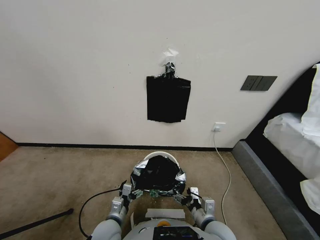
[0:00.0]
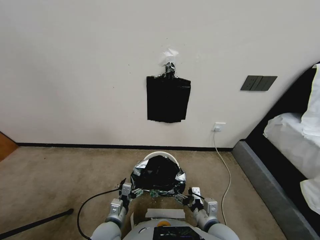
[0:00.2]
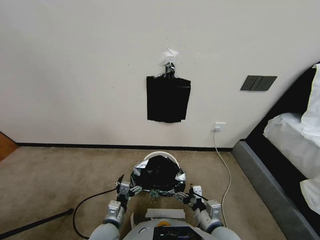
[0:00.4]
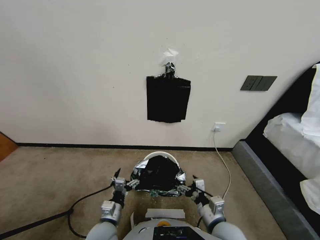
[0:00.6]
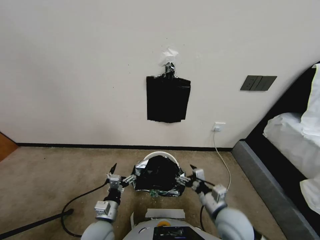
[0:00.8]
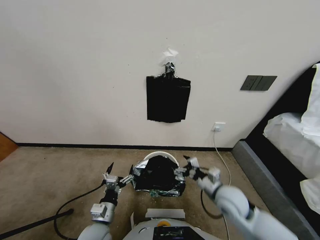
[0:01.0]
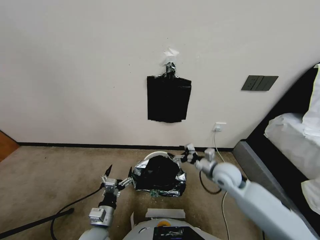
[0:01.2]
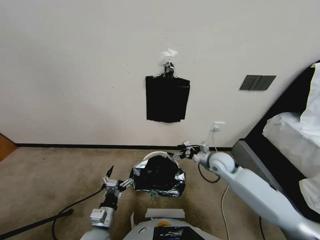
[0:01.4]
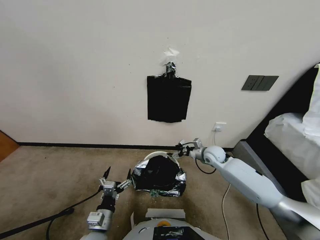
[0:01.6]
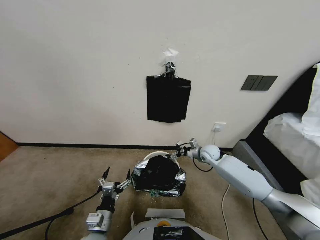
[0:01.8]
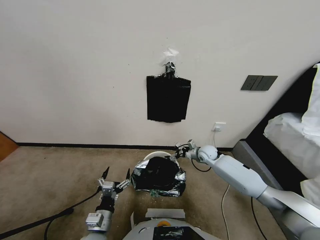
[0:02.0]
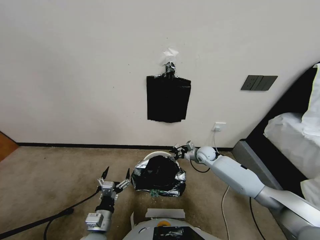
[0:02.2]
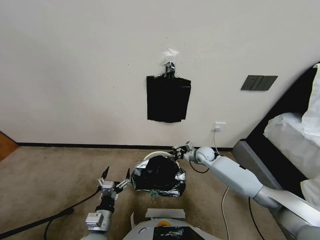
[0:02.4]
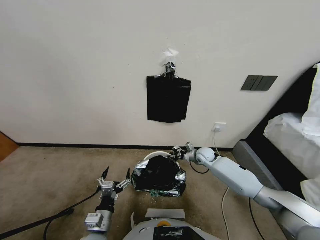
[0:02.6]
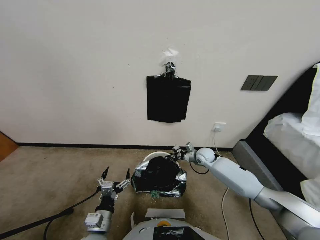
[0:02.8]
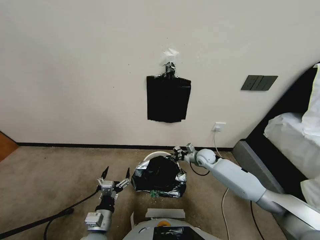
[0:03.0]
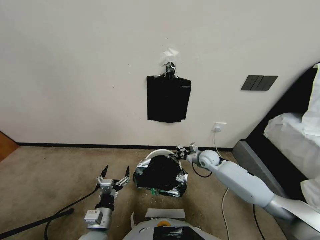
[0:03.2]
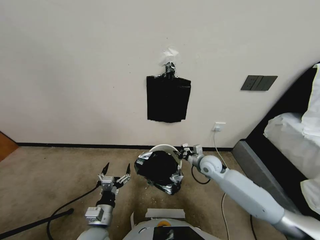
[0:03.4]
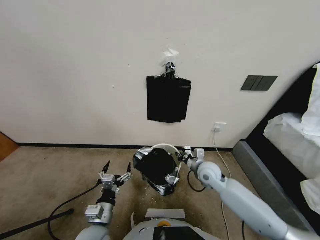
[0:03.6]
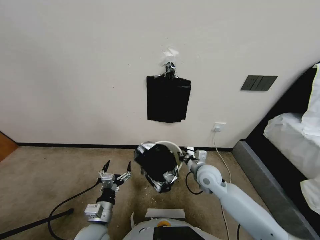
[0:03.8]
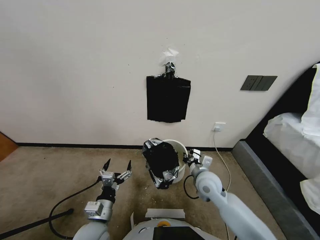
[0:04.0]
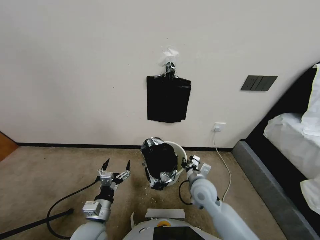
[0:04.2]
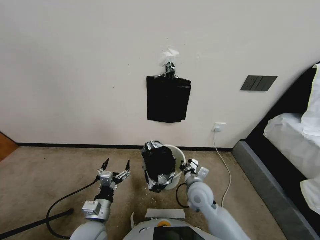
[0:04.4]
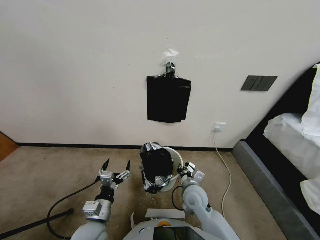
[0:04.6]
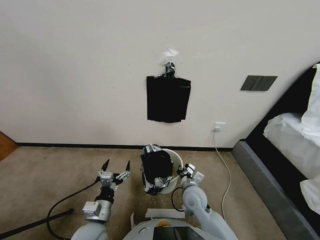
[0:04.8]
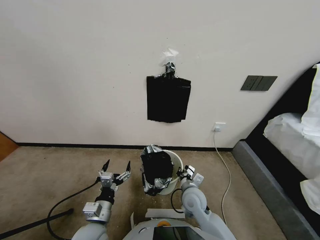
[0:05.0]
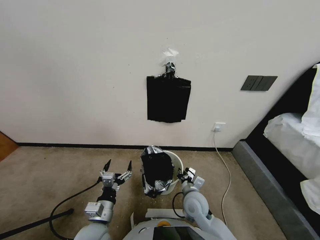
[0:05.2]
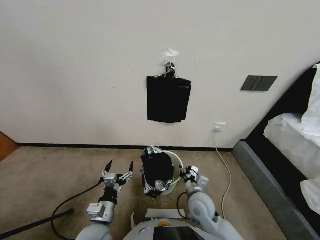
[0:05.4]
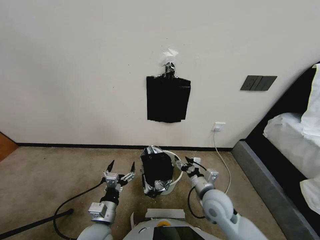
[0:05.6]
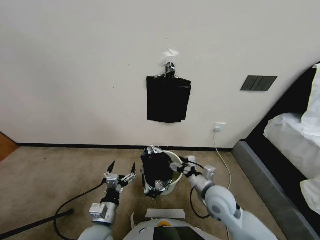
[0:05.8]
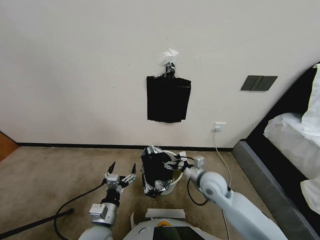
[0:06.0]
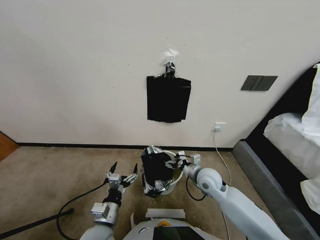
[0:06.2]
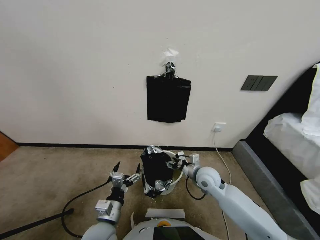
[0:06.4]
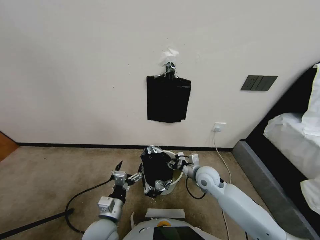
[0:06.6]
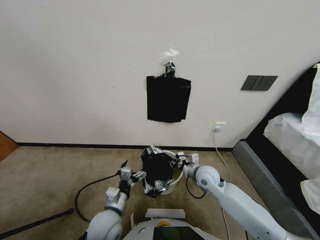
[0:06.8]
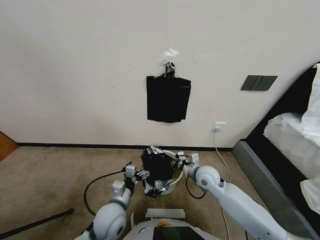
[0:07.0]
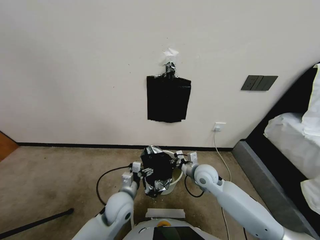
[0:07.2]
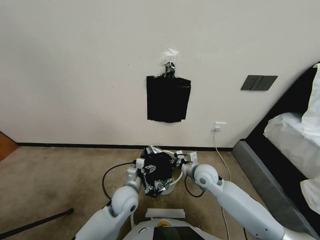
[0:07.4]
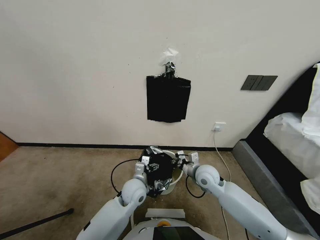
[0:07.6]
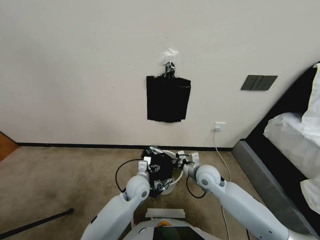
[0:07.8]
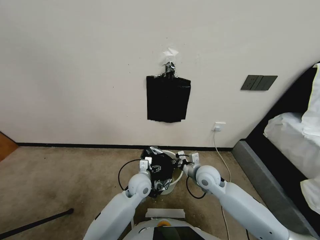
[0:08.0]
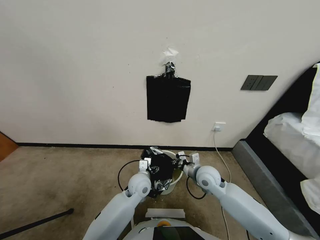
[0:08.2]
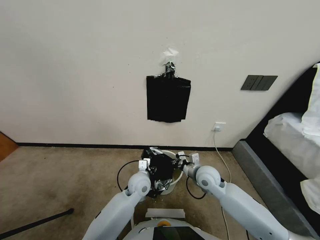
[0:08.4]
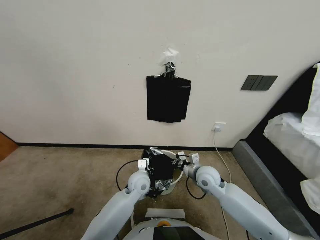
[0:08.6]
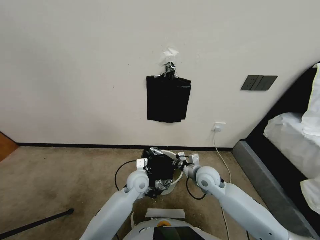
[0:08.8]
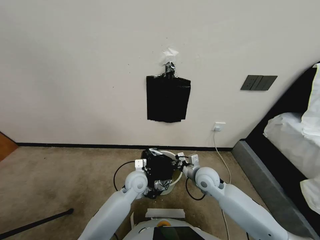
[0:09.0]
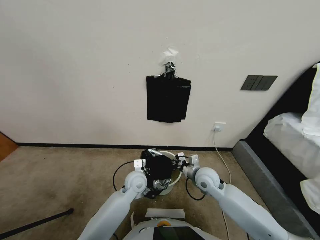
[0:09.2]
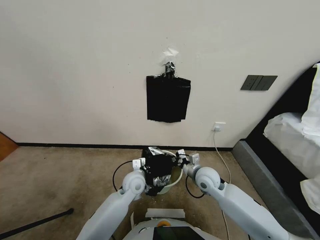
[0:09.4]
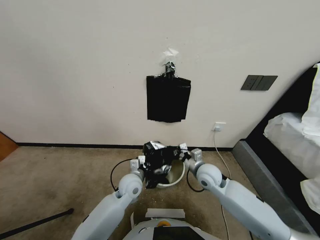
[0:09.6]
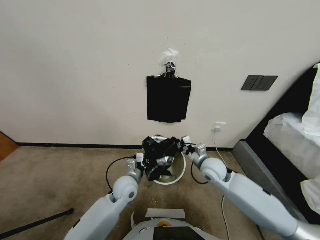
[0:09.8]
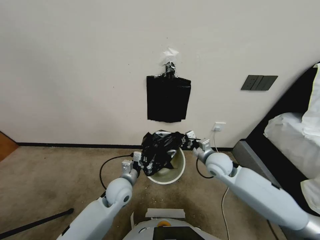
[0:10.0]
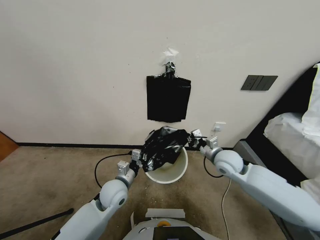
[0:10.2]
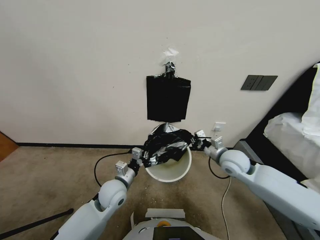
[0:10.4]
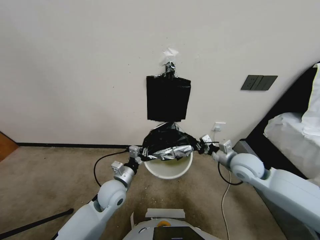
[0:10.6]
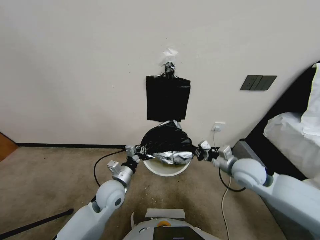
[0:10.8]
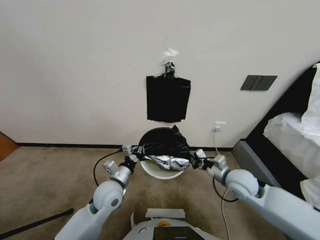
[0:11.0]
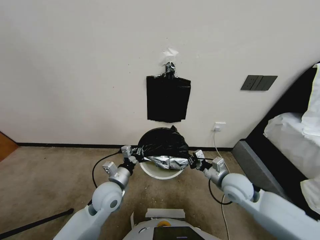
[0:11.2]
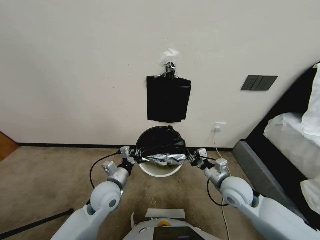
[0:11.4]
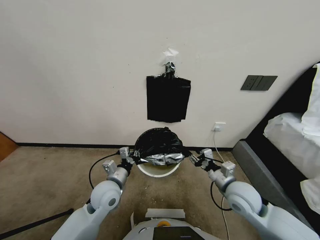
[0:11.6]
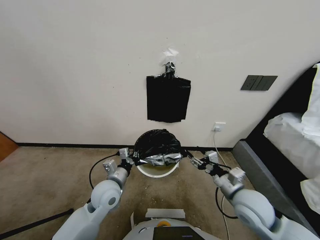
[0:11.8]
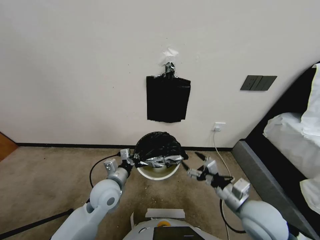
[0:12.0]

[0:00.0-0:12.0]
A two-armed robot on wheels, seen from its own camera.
Task of the whole recording: Place a trash bag onto the trash bin.
0:00.0 to 0:01.6: The right gripper moves forward, some 35 cm.
0:01.6 to 0:03.0: The right gripper closes.
0:03.0 to 0:04.4: The right gripper shifts roughly 20 cm backward and to the left.
0:04.4 to 0:06.0: The right gripper shifts approximately 5 cm to the right, and opens up.
0:06.0 to 0:07.6: The left gripper shifts about 20 cm forward and to the right; the right gripper closes.
0:07.6 to 0:09.0: The left gripper closes up.
0:09.0 to 0:10.4: The left gripper travels to the left and backward by approximately 10 cm, while the right gripper heads to the right and upward, covering some 15 cm.
0:10.4 to 0:12.0: The right gripper goes about 20 cm backward, and opens its fingers.

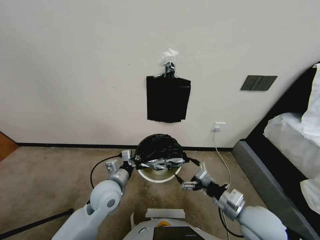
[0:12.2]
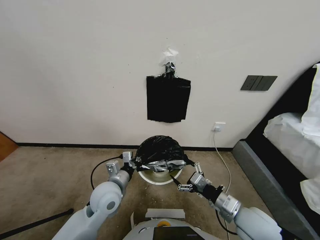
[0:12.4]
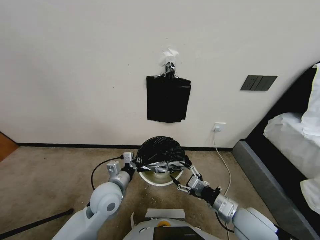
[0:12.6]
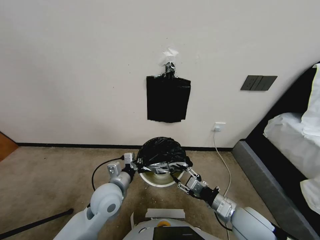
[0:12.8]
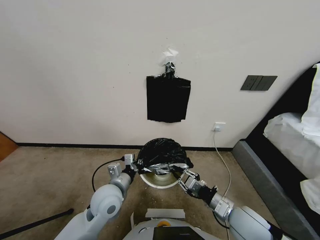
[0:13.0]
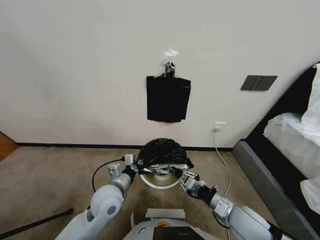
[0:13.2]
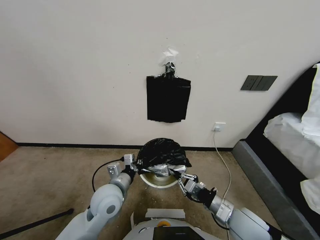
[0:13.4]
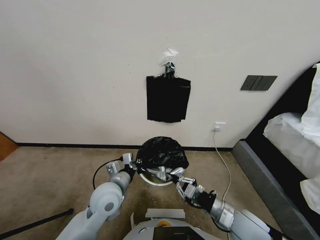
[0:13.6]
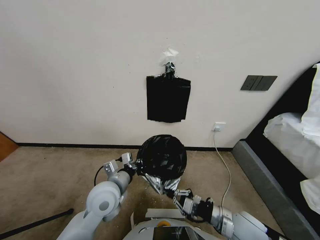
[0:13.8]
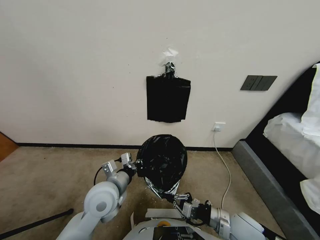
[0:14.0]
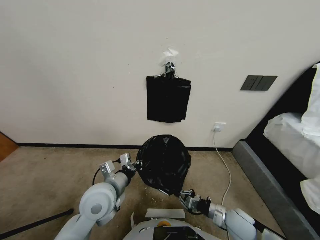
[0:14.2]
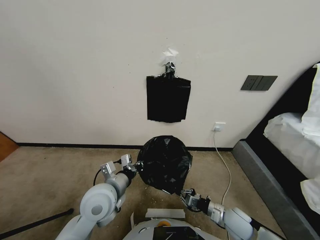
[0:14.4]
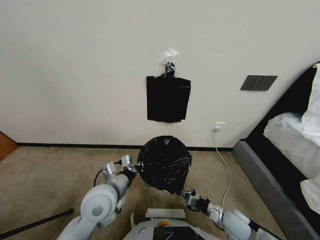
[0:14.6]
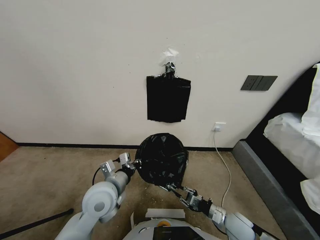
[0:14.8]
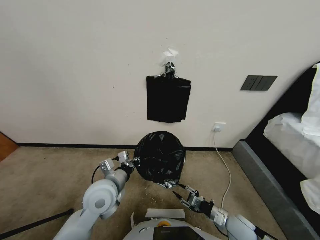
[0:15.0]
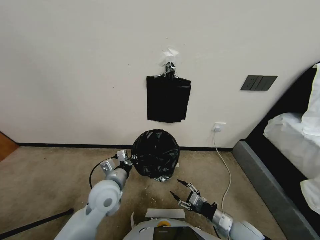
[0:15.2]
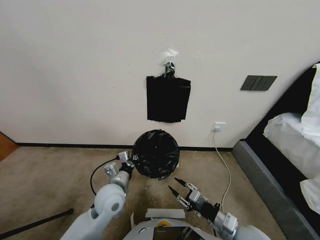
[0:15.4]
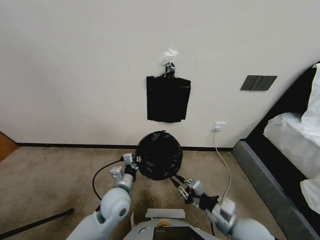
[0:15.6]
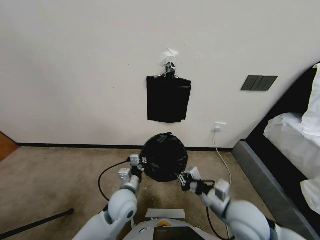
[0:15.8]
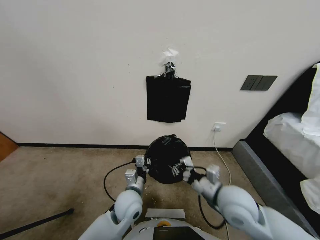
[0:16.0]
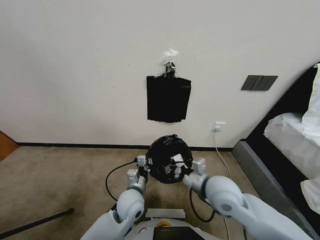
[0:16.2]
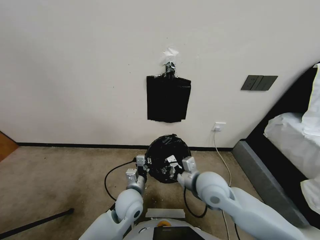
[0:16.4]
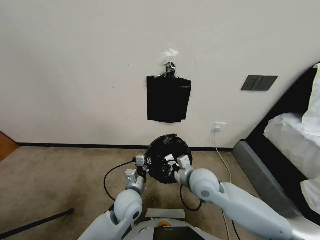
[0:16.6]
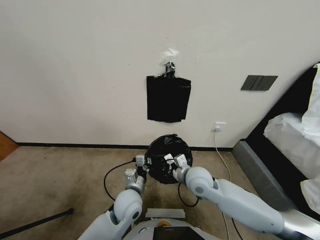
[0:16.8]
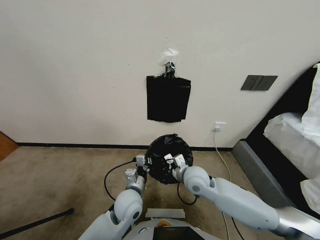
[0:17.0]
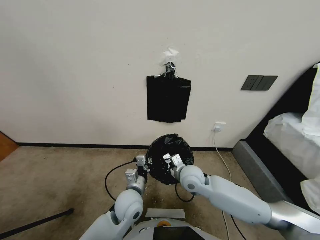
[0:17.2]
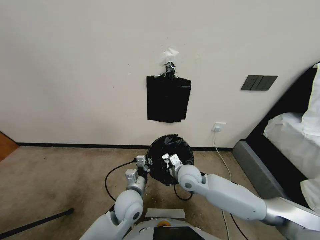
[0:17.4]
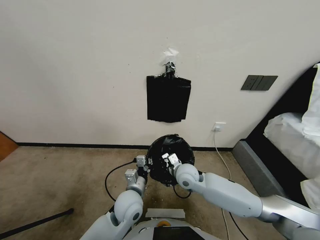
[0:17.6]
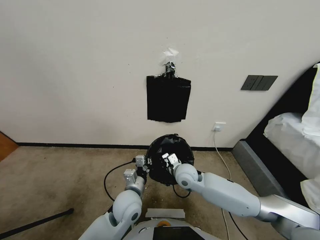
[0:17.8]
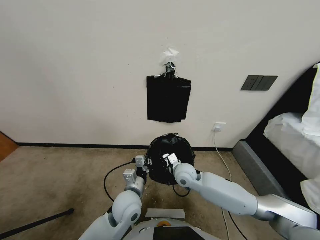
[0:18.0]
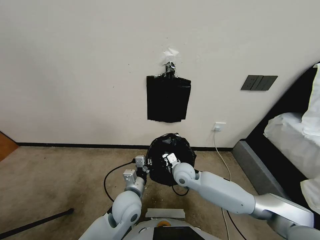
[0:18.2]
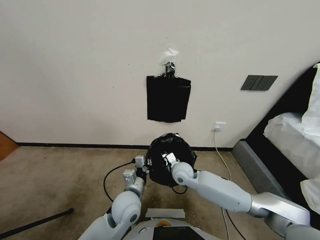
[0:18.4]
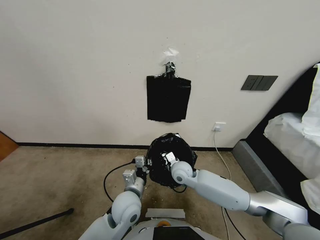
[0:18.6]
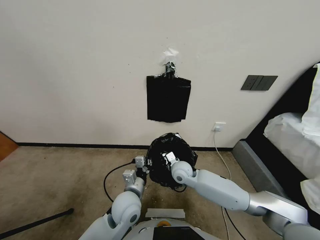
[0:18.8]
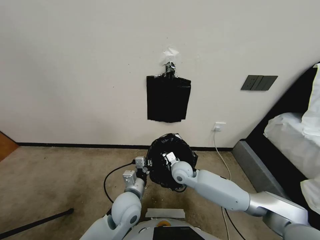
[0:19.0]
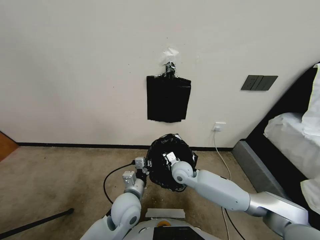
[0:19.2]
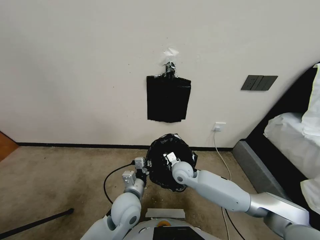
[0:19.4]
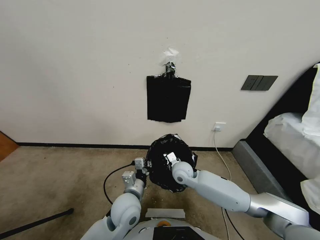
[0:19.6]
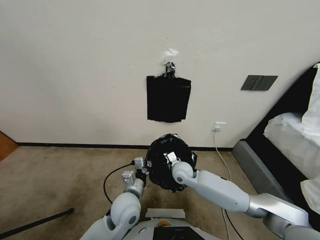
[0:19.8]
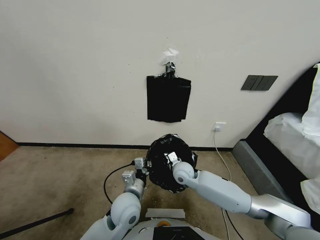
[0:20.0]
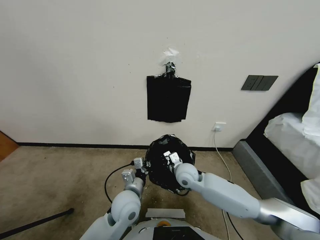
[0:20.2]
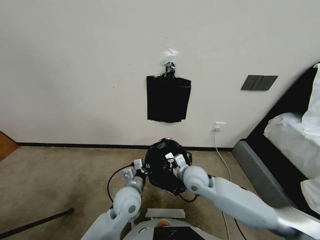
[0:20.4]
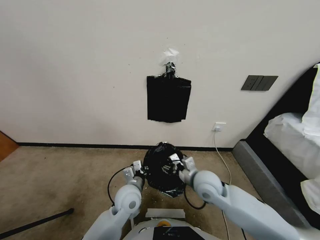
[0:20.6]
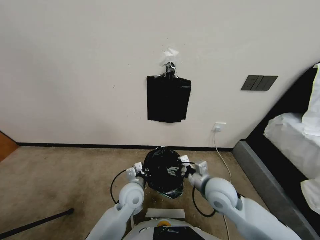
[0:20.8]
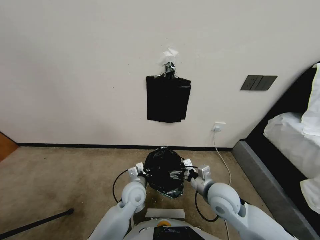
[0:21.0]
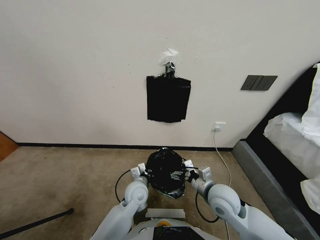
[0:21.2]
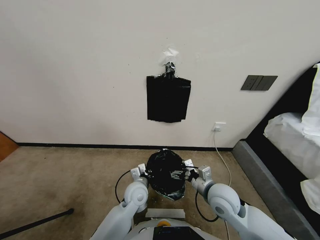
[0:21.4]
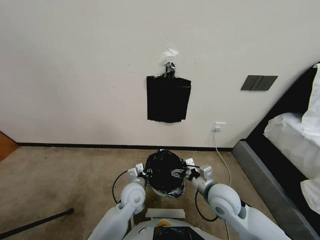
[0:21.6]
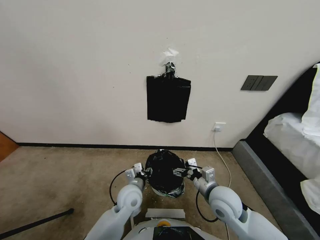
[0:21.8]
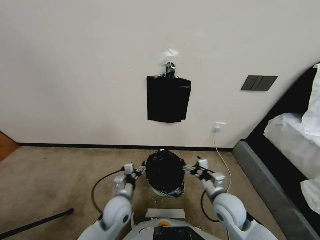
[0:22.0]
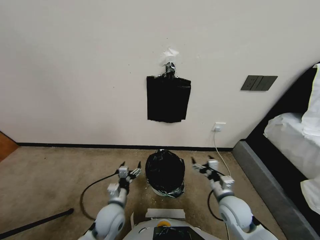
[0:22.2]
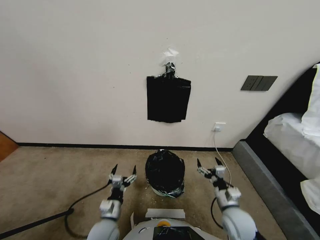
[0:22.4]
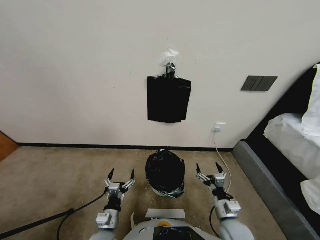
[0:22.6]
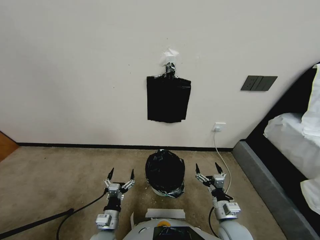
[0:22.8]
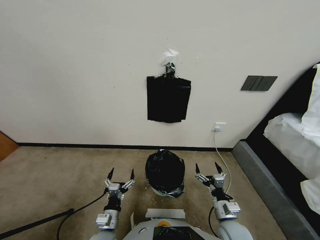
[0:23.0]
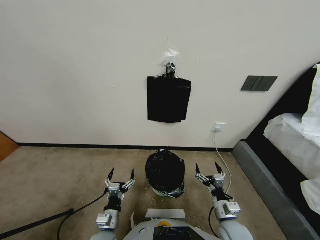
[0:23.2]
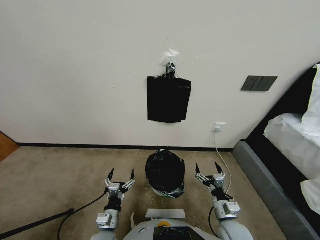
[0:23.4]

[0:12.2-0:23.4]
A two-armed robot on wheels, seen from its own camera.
Task of the whole recording: Place a trash bag onto the trash bin.
0:12.2 to 0:13.8: The right gripper shifts about 5 cm downward, and closes up.
0:13.8 to 0:15.4: The right gripper travels downward and back again, some 10 cm each way, while the left gripper shifts roughly 5 cm downward.
0:15.4 to 0:17.0: The right gripper moves forward and to the left, approximately 20 cm. Meanwhile the left gripper is displaced to the right by roughly 5 cm.
0:17.0 to 0:18.6: The right gripper travels downward and forward by about 5 cm.
0:18.6 to 0:20.2: The right gripper ends up approximately 5 cm from where it was.
0:20.2 to 0:21.8: The right gripper is displaced backward and to the right by some 15 cm, and opens its fingers, while the left gripper opens.
0:21.8 to 0:23.4: The right gripper shifts some 10 cm downward and backward, while the left gripper shifts approximately 15 cm backward, downward and to the left.
